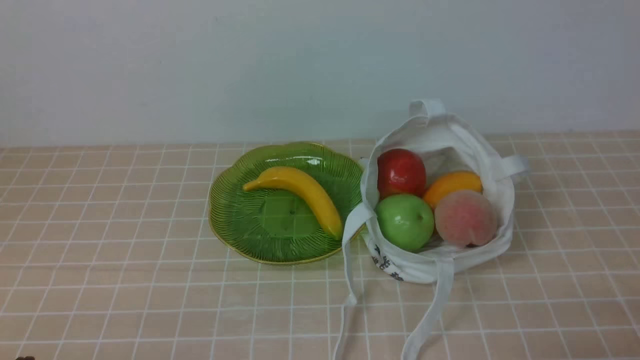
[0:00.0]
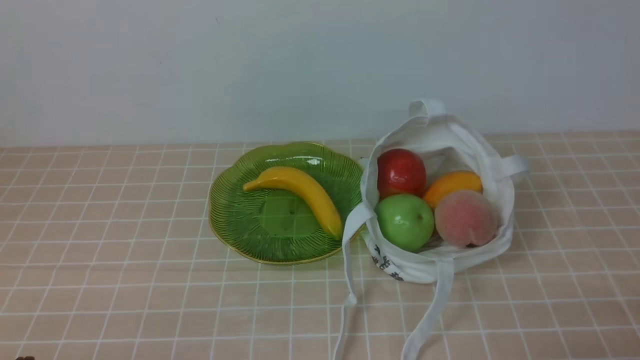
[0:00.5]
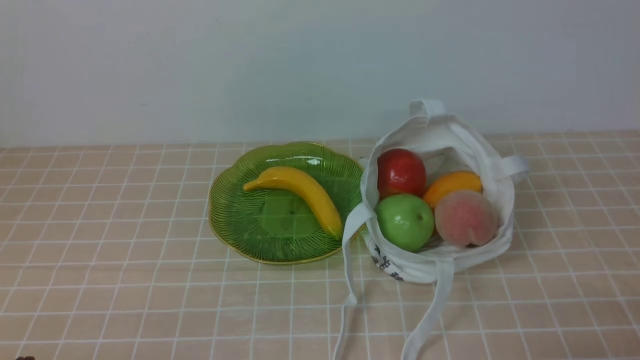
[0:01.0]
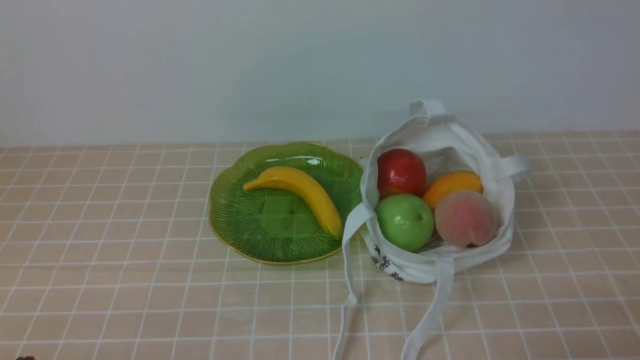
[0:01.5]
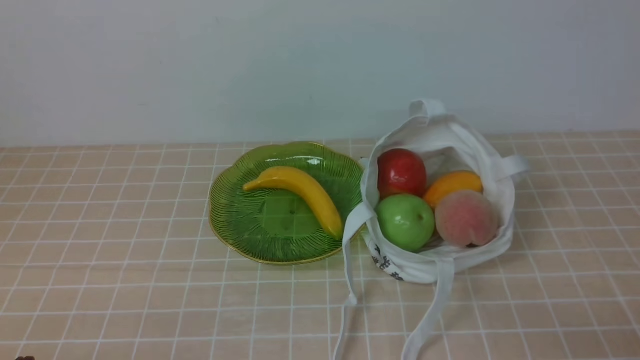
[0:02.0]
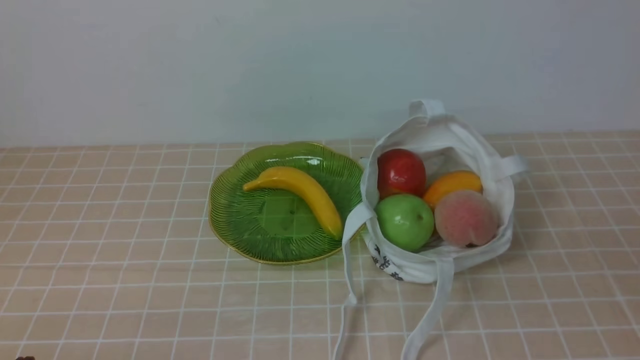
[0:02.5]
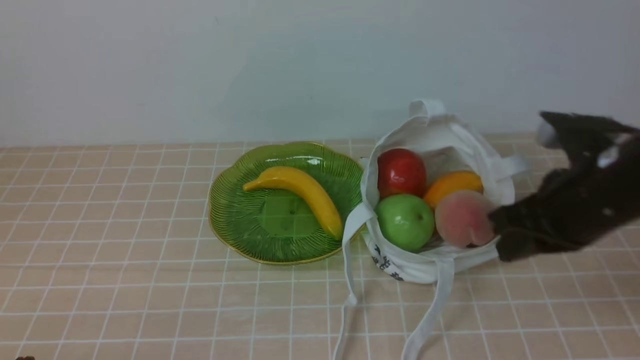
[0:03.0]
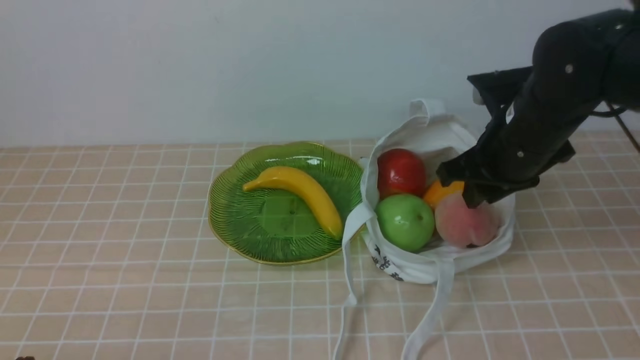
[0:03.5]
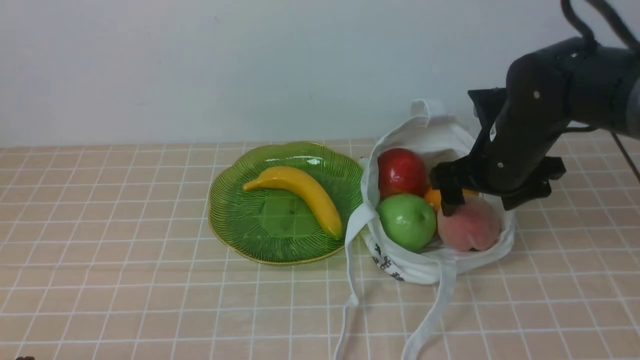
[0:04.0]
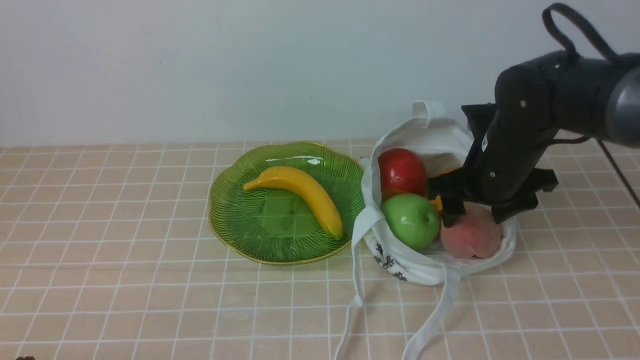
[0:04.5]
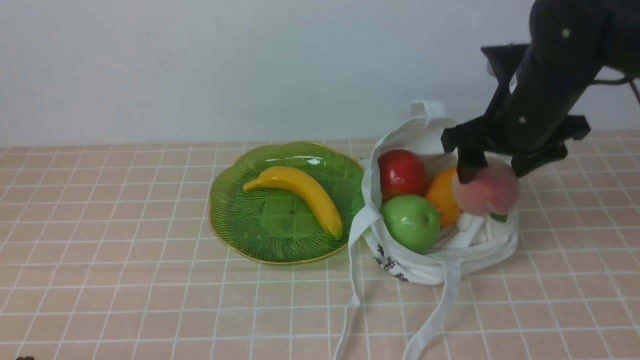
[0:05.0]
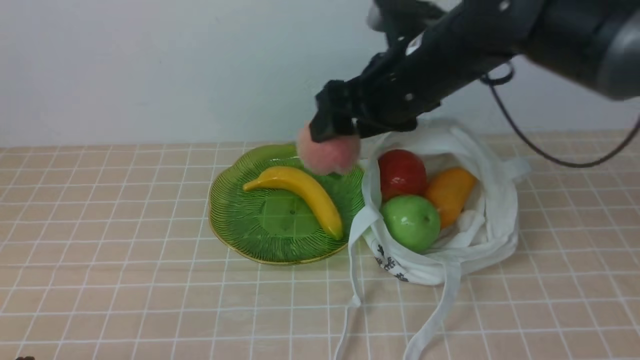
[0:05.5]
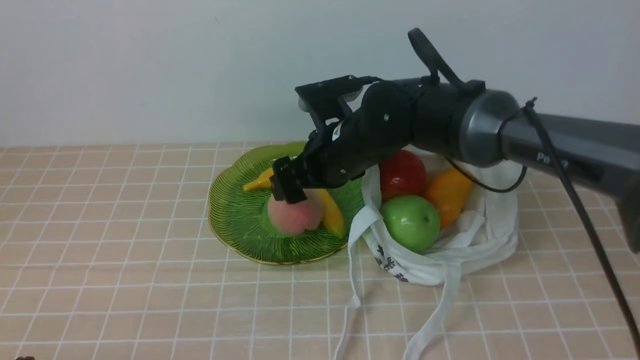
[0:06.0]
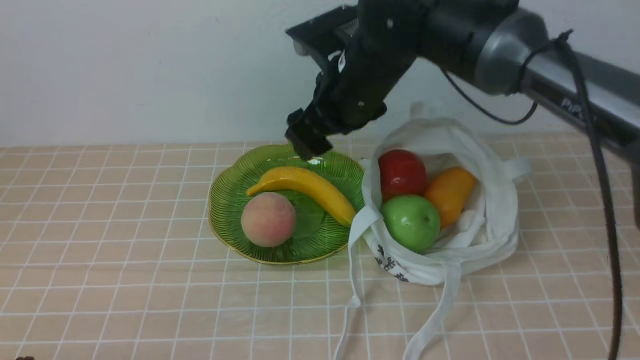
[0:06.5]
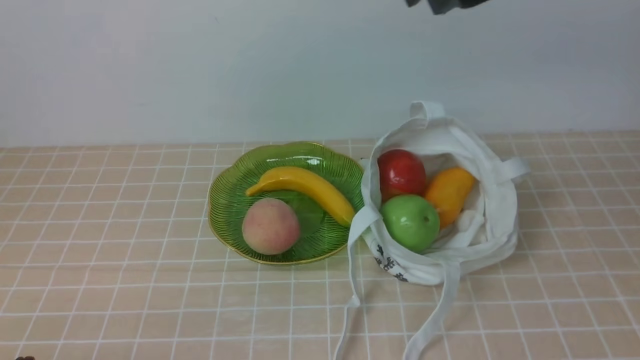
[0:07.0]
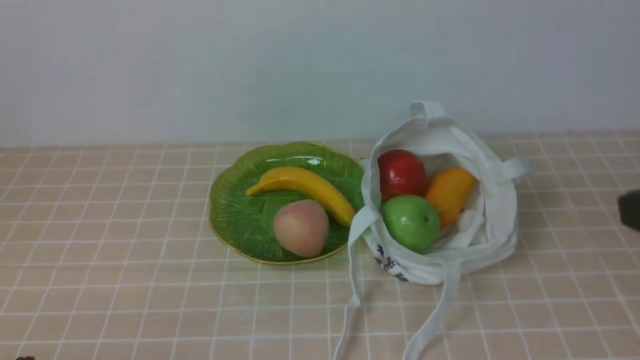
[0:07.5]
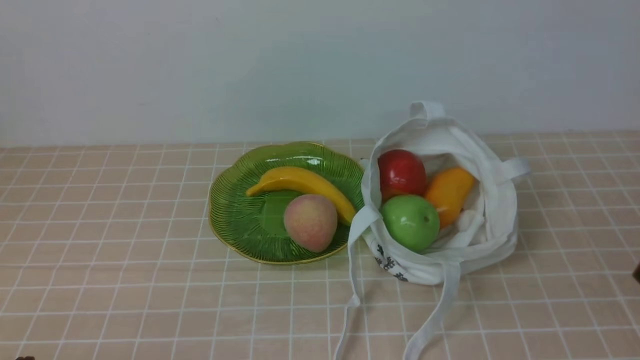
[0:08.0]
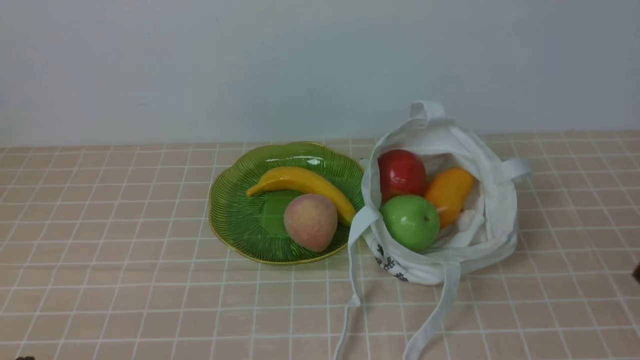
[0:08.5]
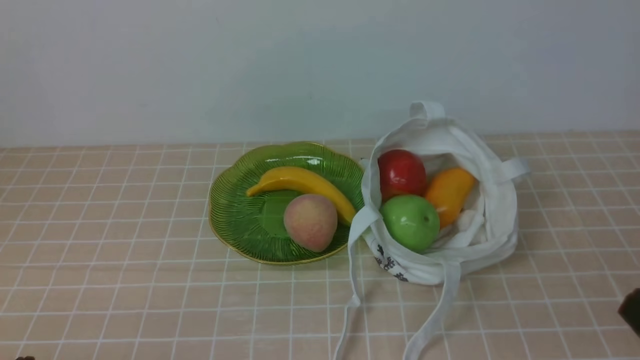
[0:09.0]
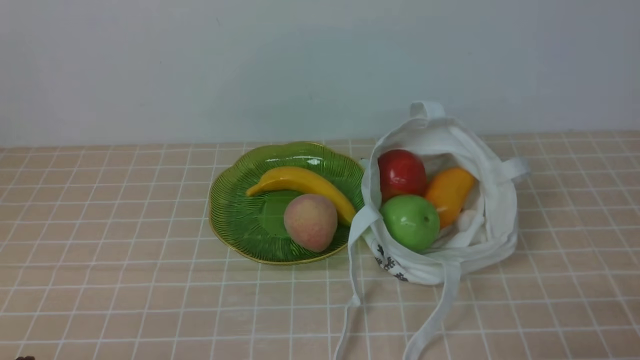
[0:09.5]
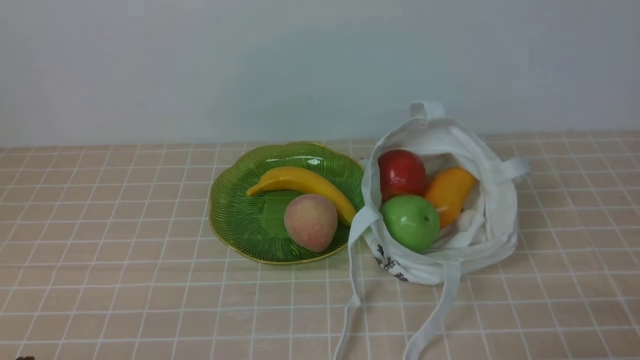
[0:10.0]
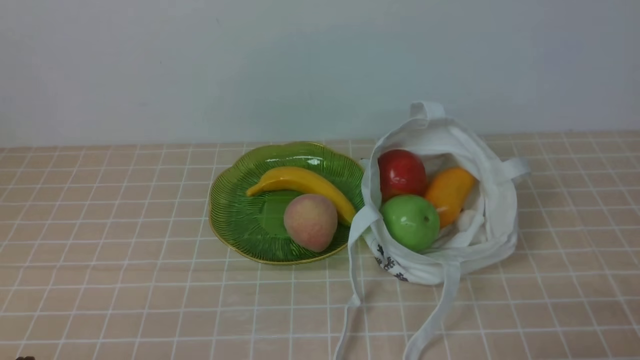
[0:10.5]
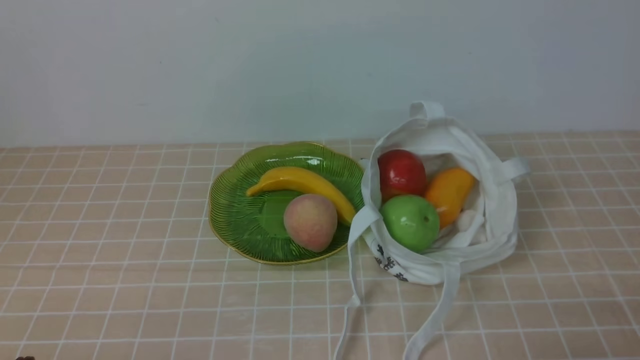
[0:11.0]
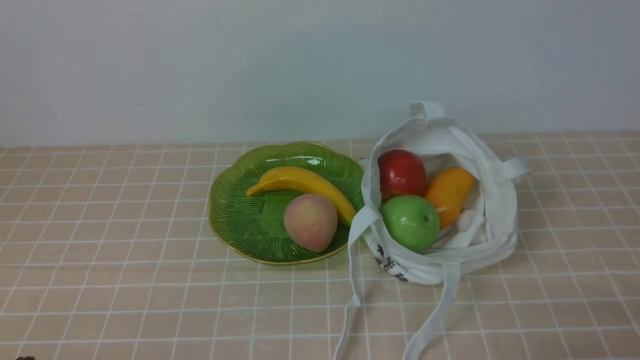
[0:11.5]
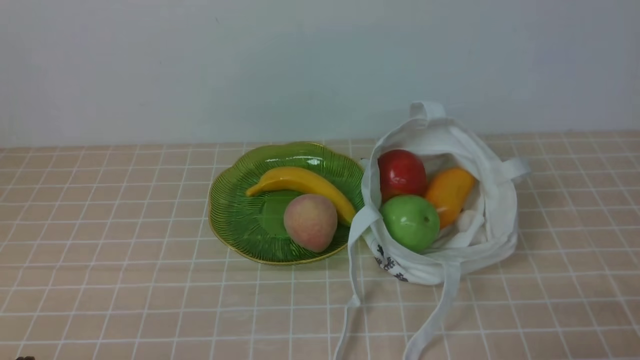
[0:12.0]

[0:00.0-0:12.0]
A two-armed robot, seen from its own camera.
Step, 0:00.0 to 0:04.5: use the right arm to grab a peach from the bag.
Step, 0:05.0 to 0:06.0: use the right arm to put the peach into the empty plate on the left.
0:02.0 to 0:04.0: The right gripper moves forward, about 30 cm, and opens up.
0:04.0 to 0:06.0: The right gripper heads to the left, covering about 15 cm.
0:06.0 to 0:08.0: The right gripper goes roughly 40 cm backward and to the right, and closes up.
0:10.0 to 0:12.0: The two grippers keep their place.

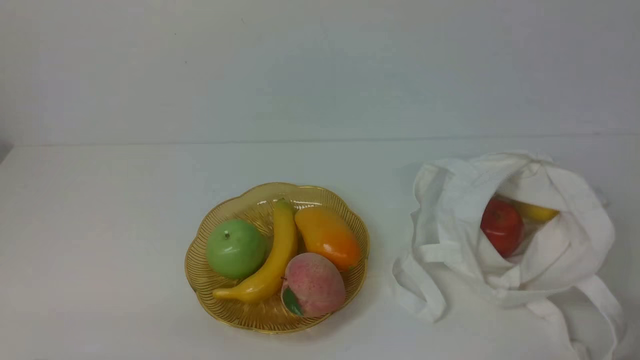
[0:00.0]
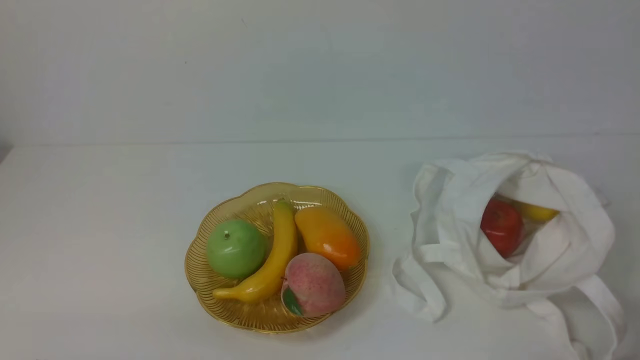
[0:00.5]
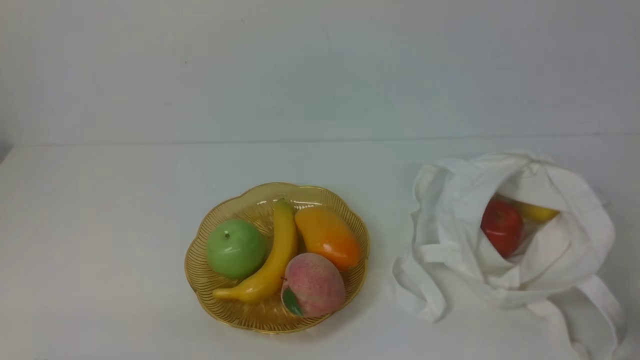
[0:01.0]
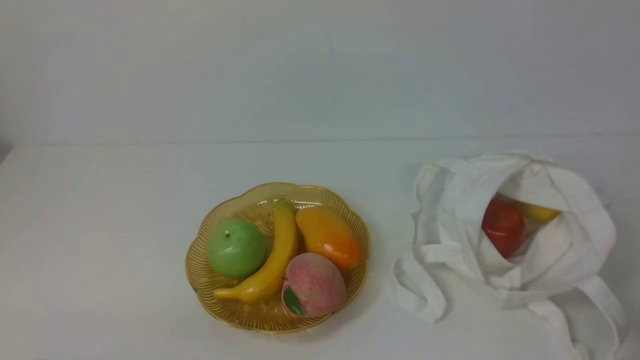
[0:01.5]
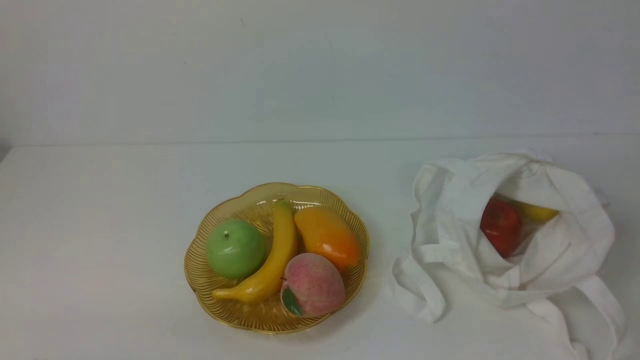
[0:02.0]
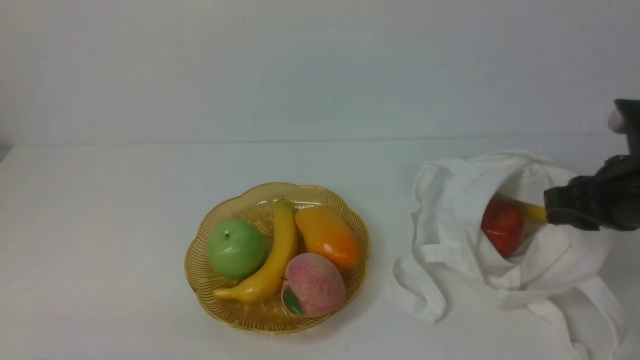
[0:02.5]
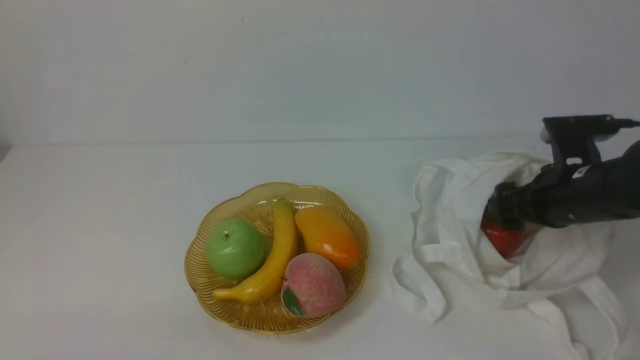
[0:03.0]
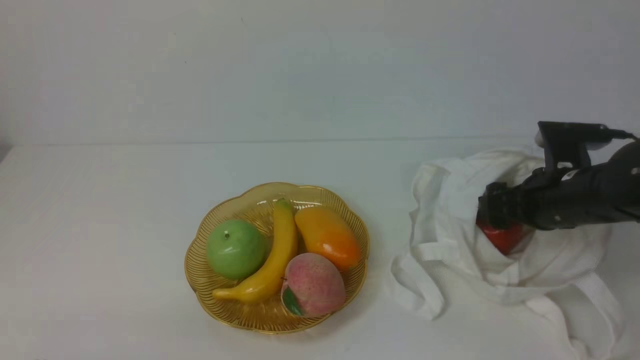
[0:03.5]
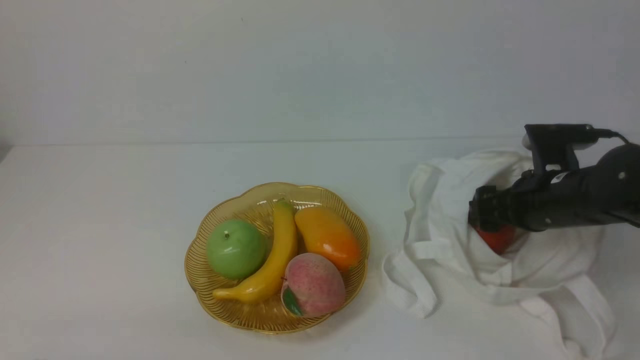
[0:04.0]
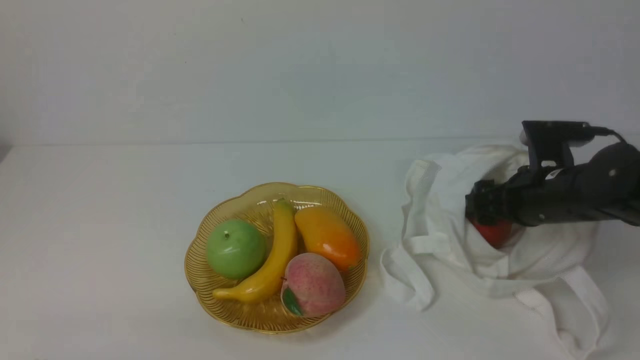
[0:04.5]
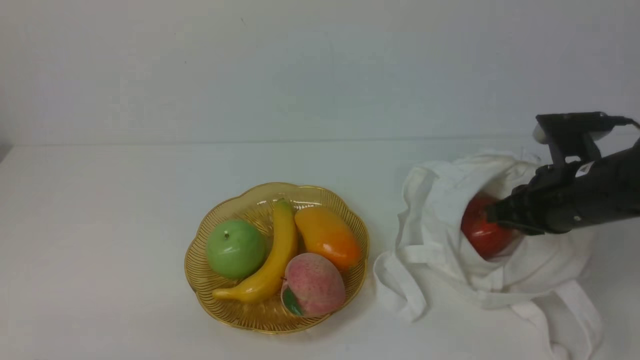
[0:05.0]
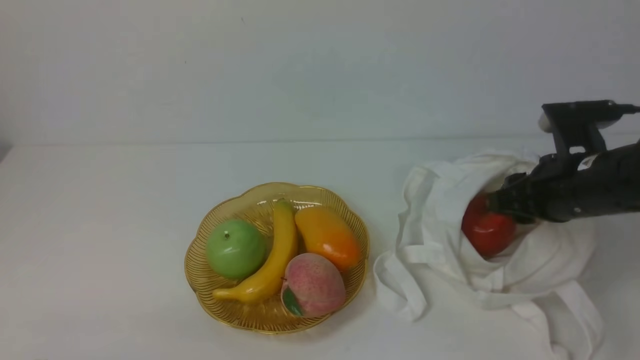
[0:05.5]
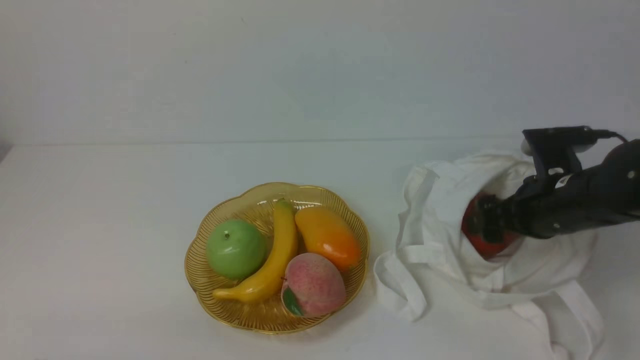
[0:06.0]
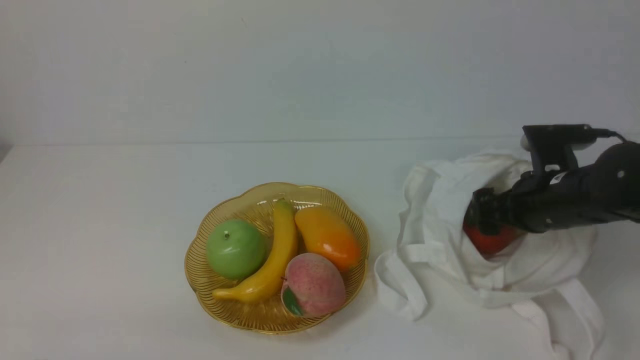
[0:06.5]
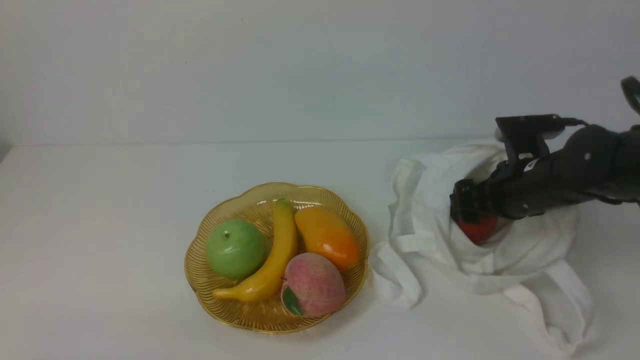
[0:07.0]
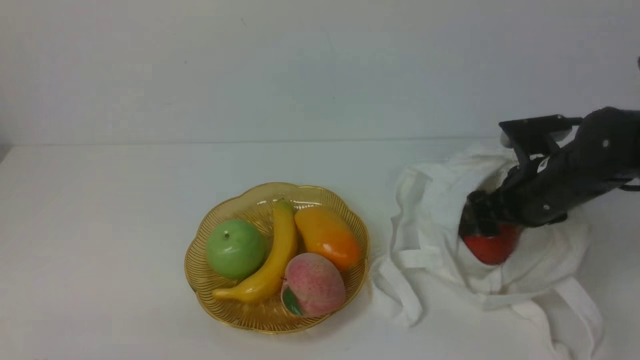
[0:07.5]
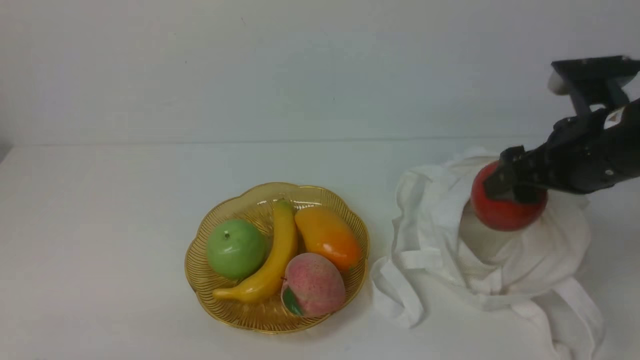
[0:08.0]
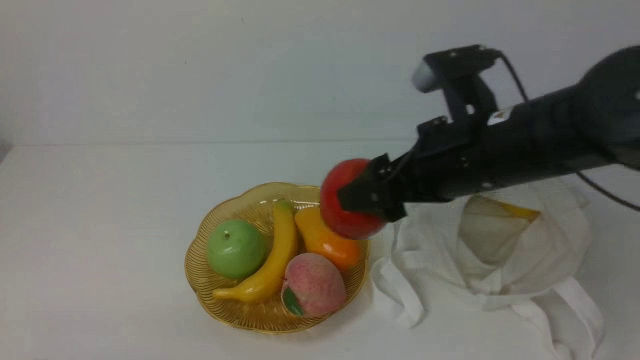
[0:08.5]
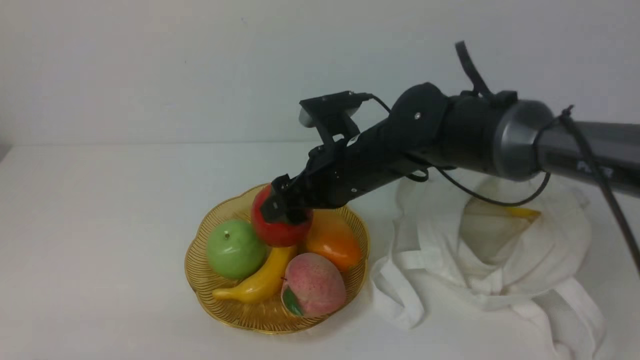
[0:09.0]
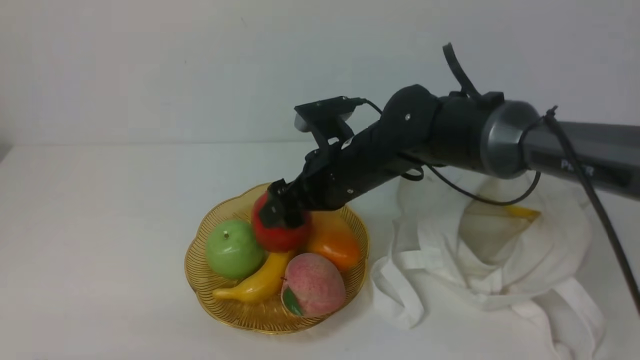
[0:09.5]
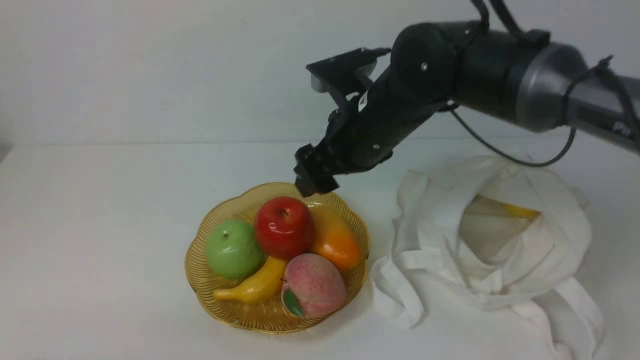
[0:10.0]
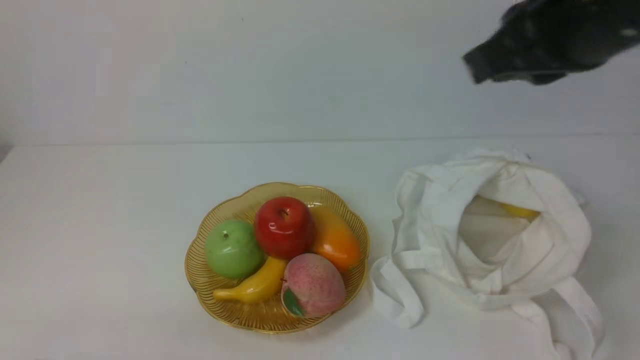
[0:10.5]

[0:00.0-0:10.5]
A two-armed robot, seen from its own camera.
Step, 0:00.0 to 0:07.5: use the right arm to grab an apple from the bag.
Step, 0:08.0 to 0:09.5: use the right arm to put the apple into the empty plate on the left.
0:02.0 to 0:04.0: The right gripper moves forward and downward, some 25 cm, and opens up.
0:04.0 to 0:06.5: The right gripper closes, then opens again.
0:06.5 to 0:08.5: The right gripper shifts roughly 20 cm upward, to the left and backward.
0:08.5 to 0:10.5: The right gripper moves upward, to the right and backward, roughly 15 cm, and closes.
